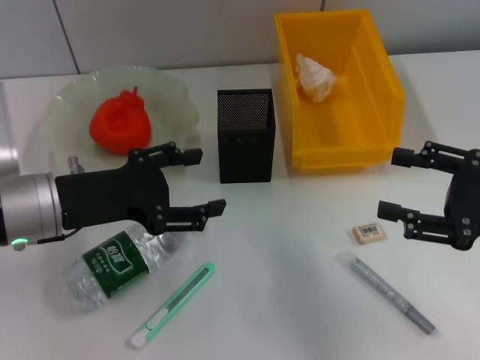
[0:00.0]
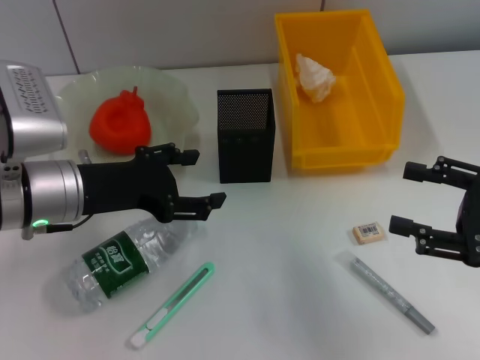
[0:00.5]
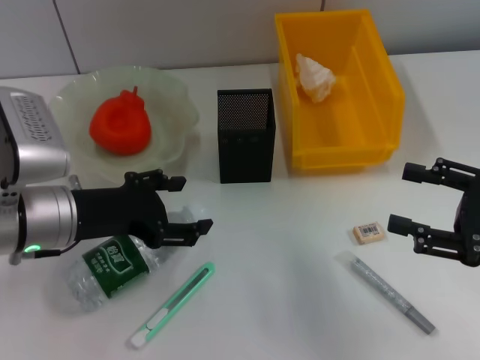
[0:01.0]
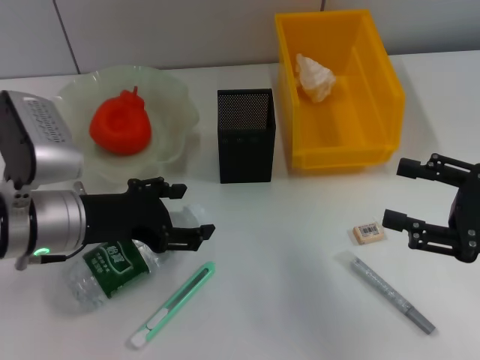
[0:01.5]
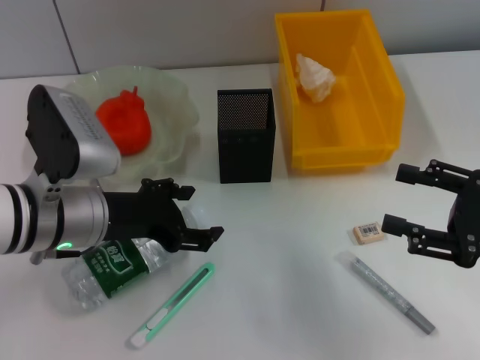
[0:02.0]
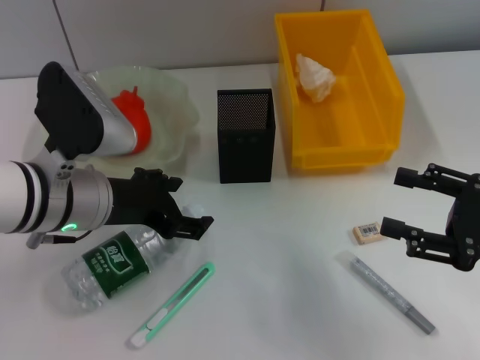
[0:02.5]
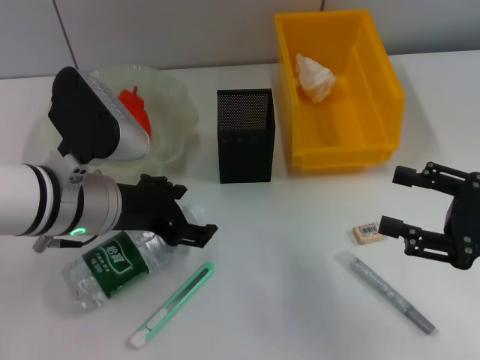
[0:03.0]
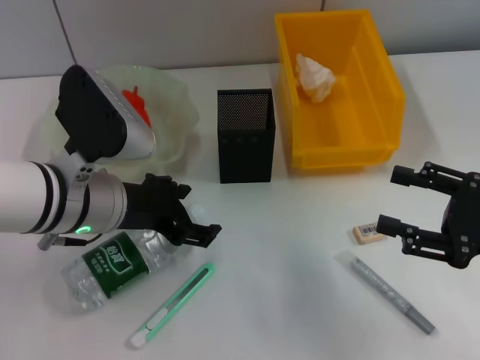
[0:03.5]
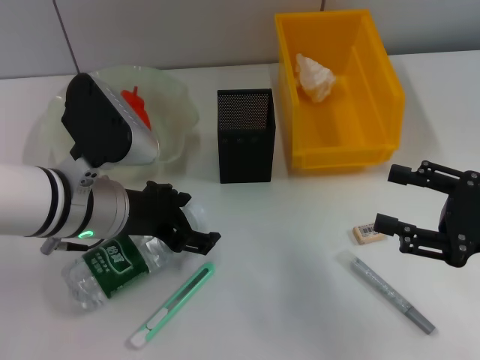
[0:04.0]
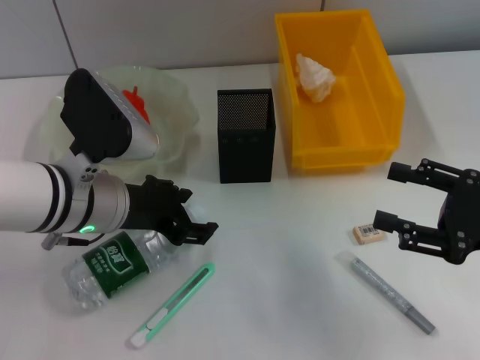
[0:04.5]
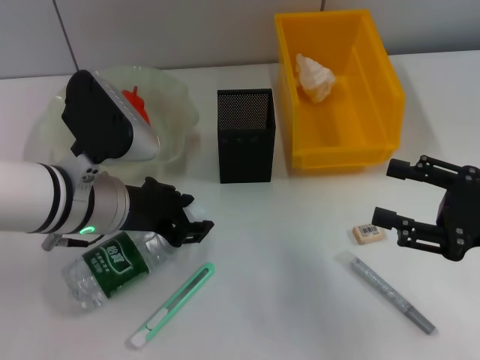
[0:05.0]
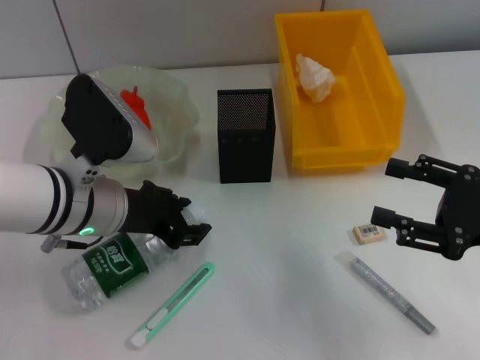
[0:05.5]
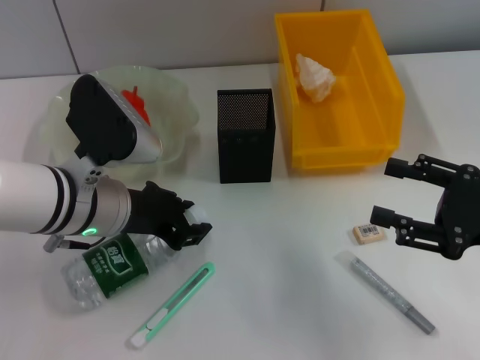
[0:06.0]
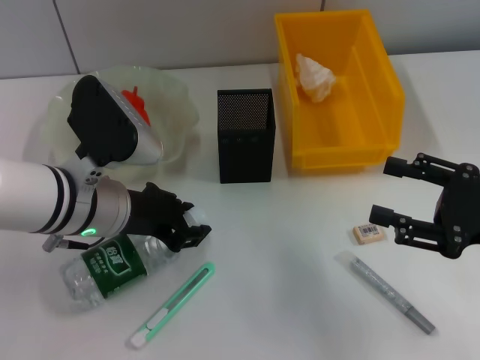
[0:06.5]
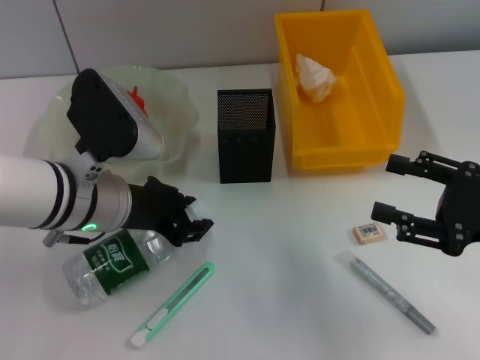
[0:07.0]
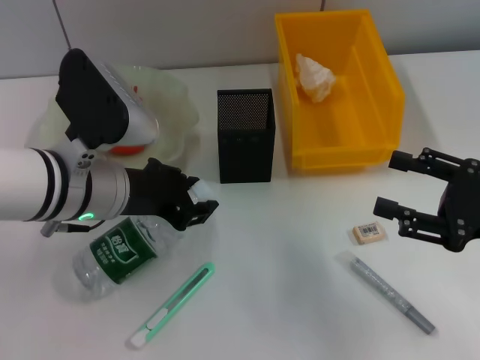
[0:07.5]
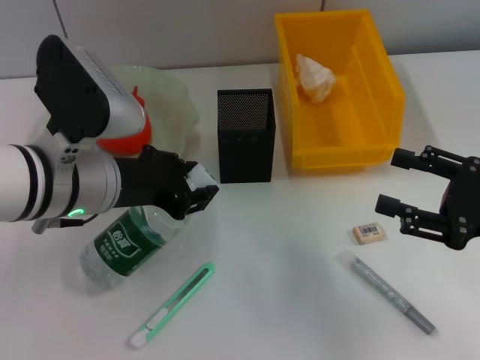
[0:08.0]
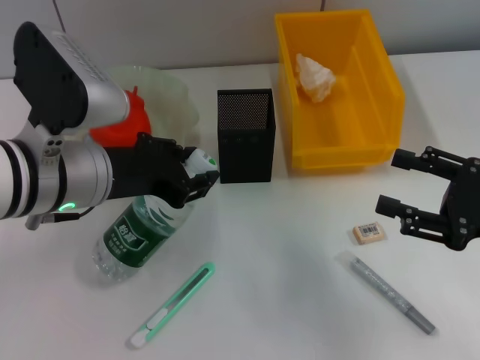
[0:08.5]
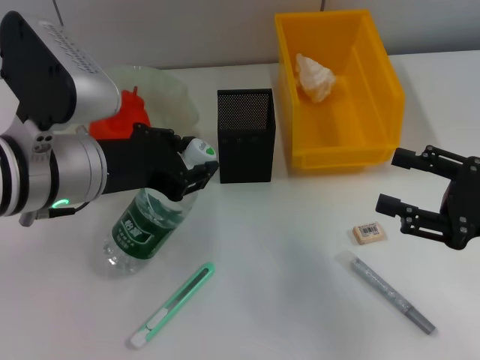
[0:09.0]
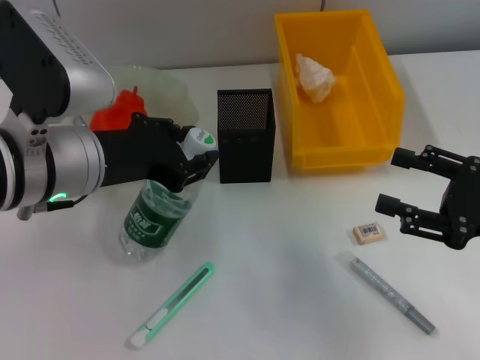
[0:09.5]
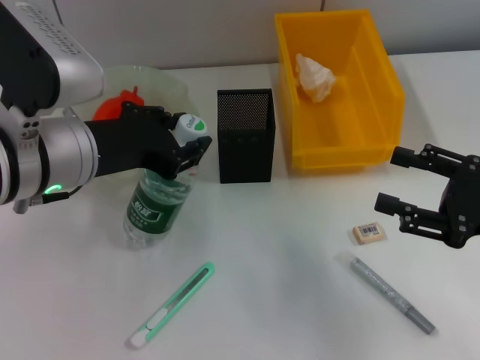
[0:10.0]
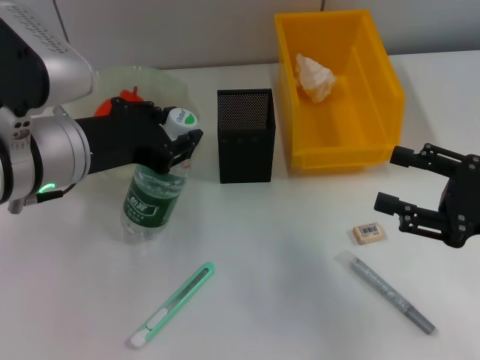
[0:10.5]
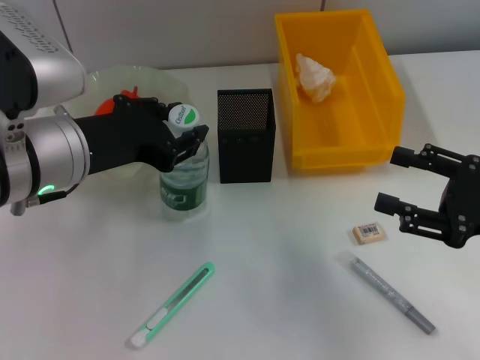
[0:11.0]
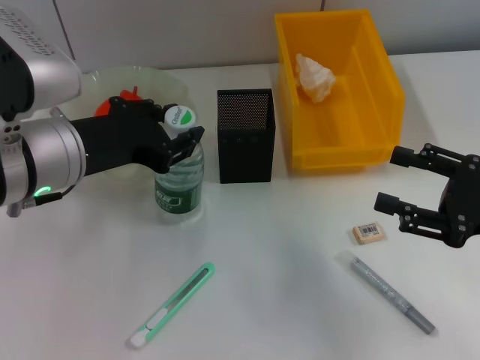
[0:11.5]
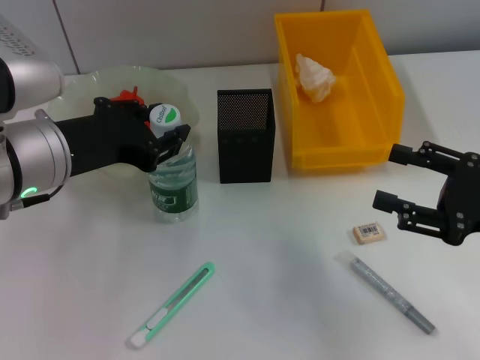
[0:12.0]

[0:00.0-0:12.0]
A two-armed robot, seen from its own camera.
Step, 0:00.0 to 0:06.0: Grab the water bottle with the left hand.
0:02.0 to 0:04.0: There are only small adjustments of the grippers.
0:04.0 to 0:06.0: The left gripper closes.
0:06.0 to 0:08.0: The grippers make only small movements.
0:08.0 to 0:12.0: The grippers make only small movements.

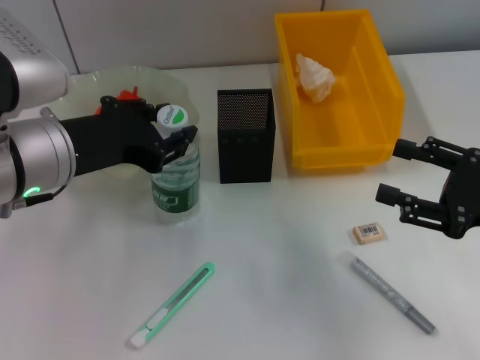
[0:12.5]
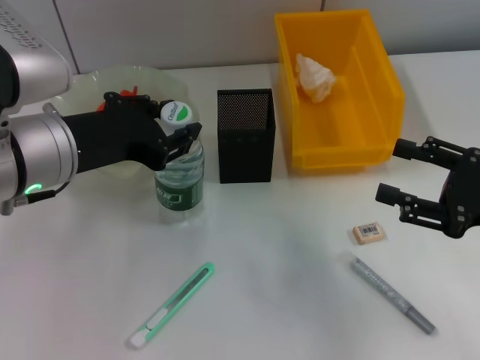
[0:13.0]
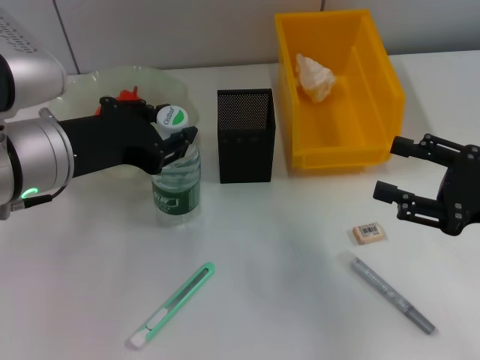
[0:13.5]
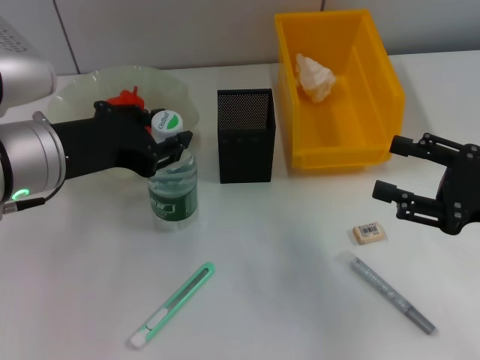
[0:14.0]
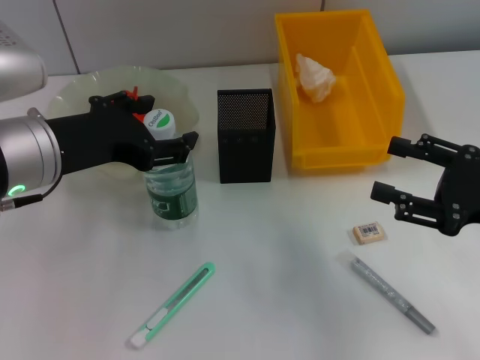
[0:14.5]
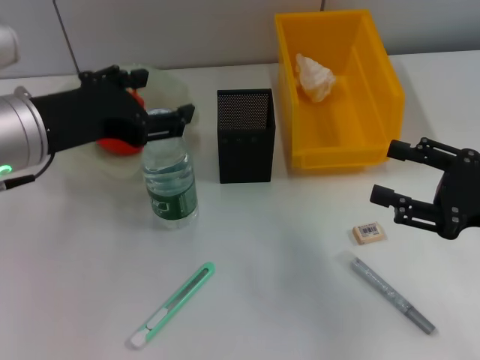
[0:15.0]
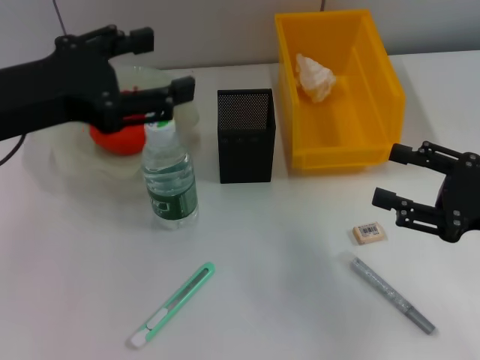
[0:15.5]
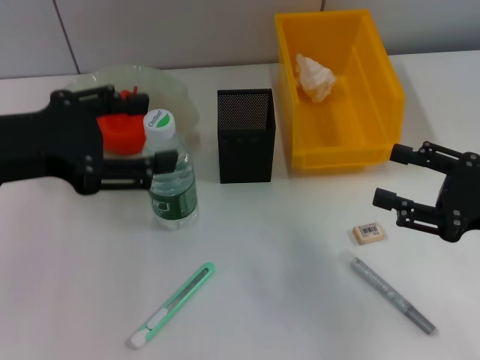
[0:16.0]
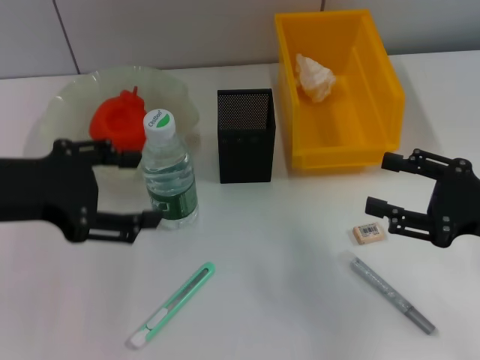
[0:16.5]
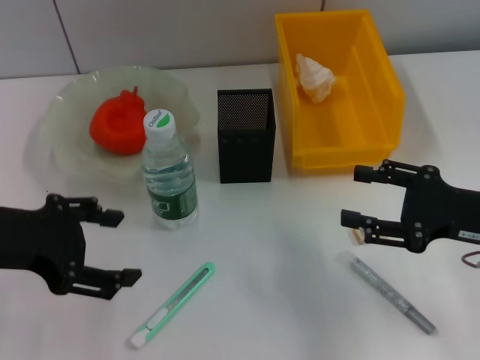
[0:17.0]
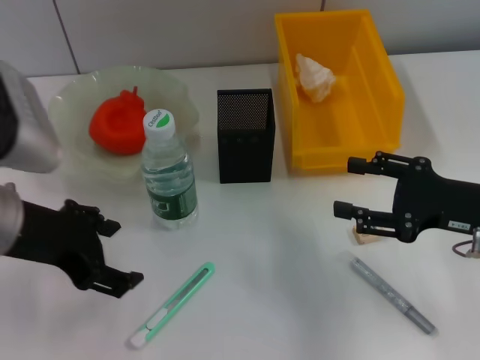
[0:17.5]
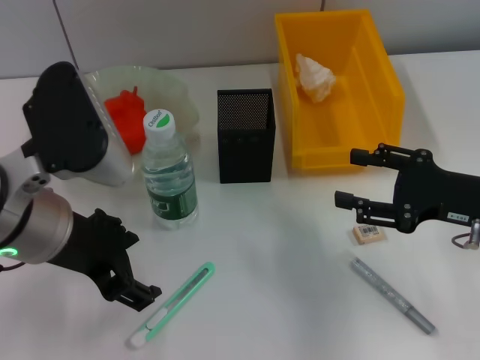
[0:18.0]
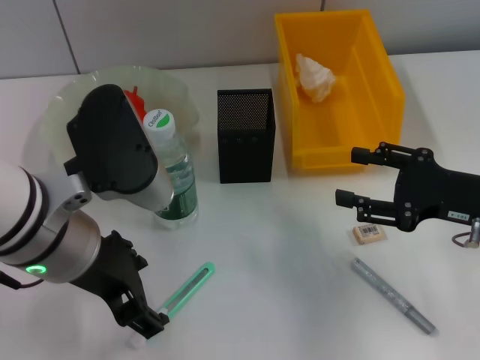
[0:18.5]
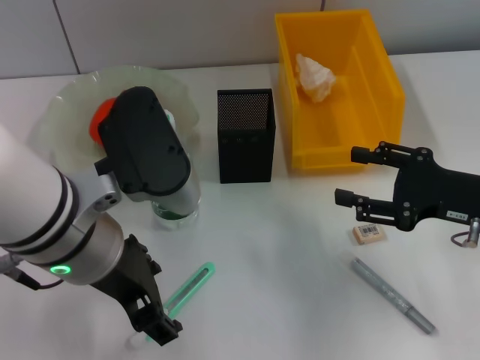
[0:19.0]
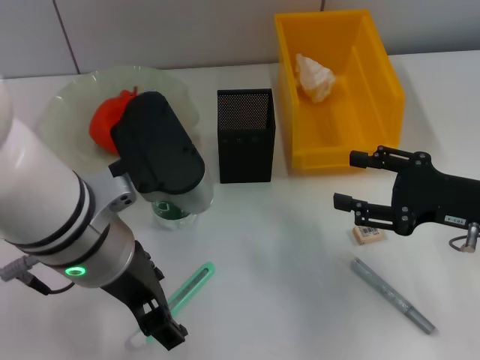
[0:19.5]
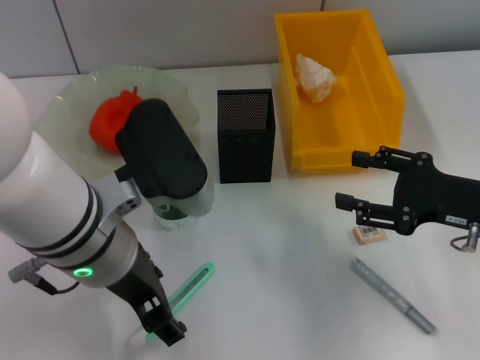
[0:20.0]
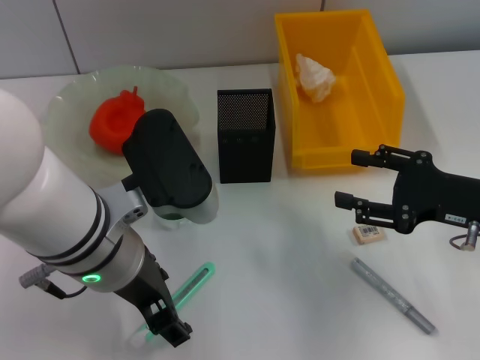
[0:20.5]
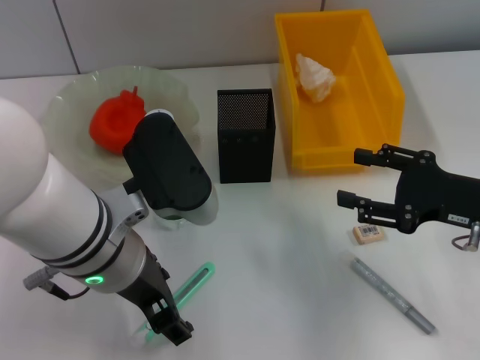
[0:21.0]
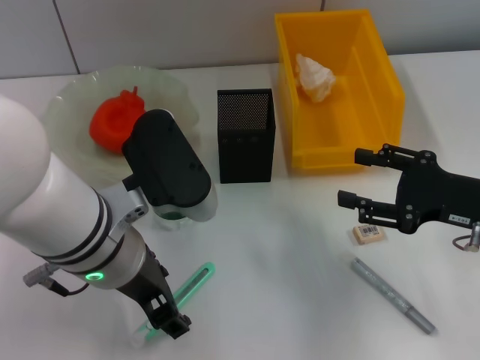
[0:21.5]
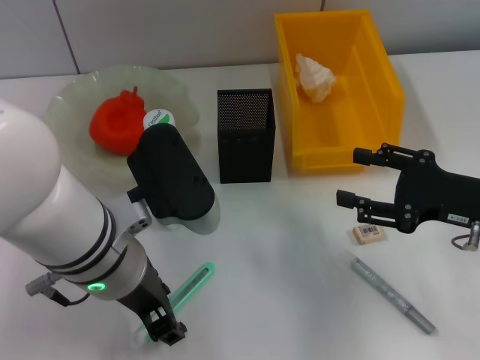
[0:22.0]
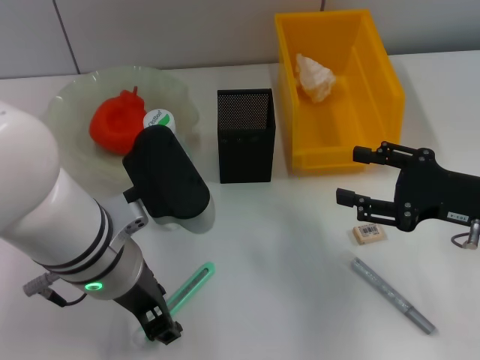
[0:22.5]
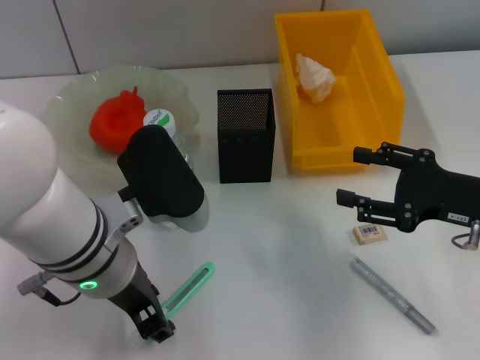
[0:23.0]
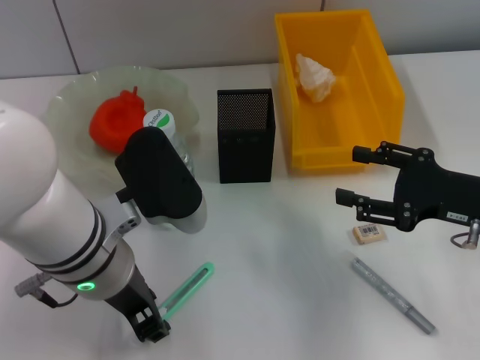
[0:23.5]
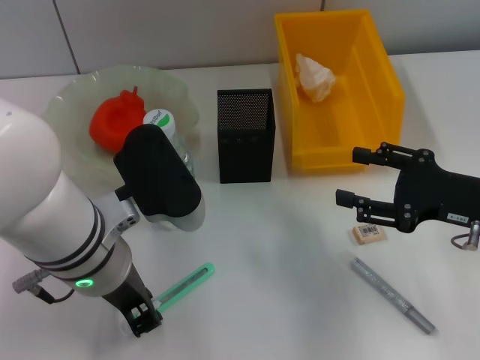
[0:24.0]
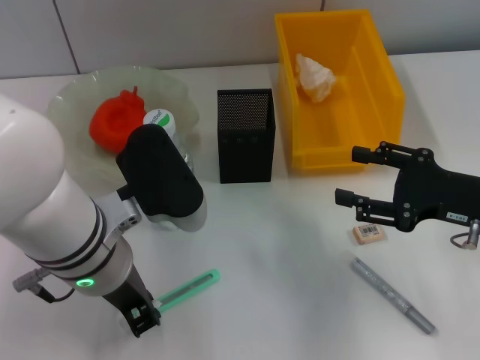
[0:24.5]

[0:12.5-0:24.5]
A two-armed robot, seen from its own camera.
Step, 0:12.5 to 0:14.5: Place the water bottle on the table with the left hand.
0:12.5 to 0:14.5: The two grippers keep their place.
0:14.5 to 0:16.5: The left gripper travels to the left by roughly 5 cm.
0:16.5 to 0:18.5: The left gripper shifts some 10 cm to the right.
0:18.5 to 0:20.5: There are only small adjustments of the grippers.
0:20.5 to 0:22.5: The left gripper closes its fingers.
0:22.5 to 0:24.5: The left gripper closes.

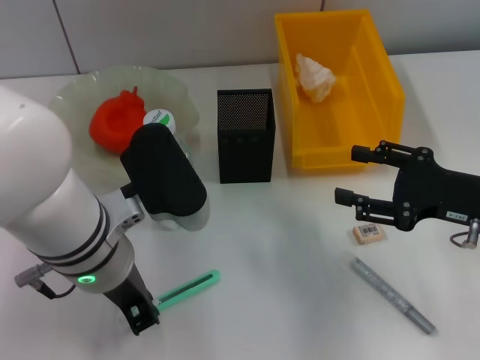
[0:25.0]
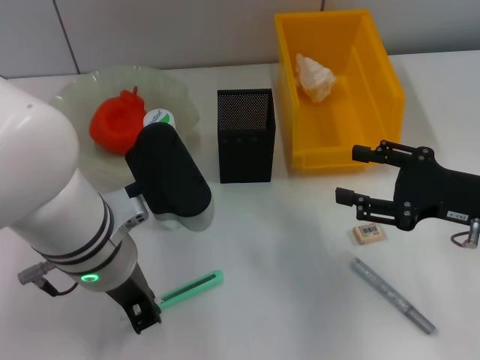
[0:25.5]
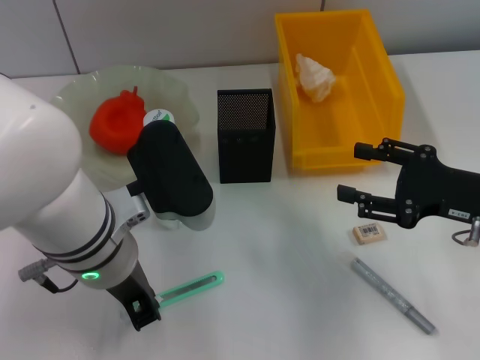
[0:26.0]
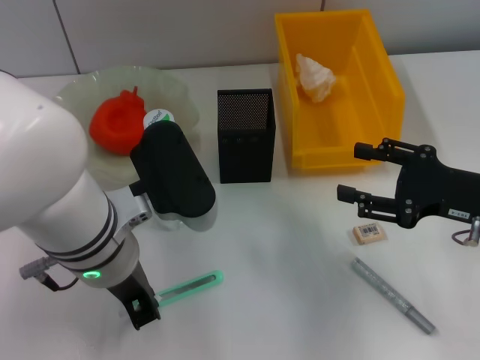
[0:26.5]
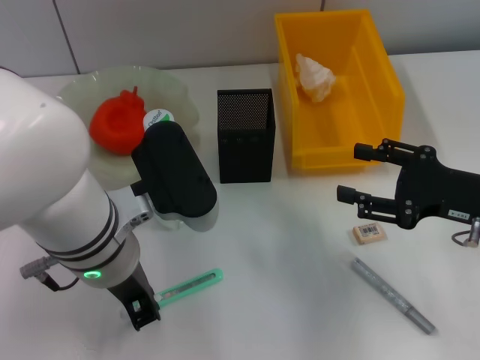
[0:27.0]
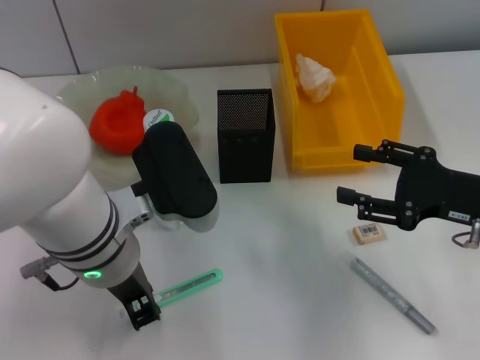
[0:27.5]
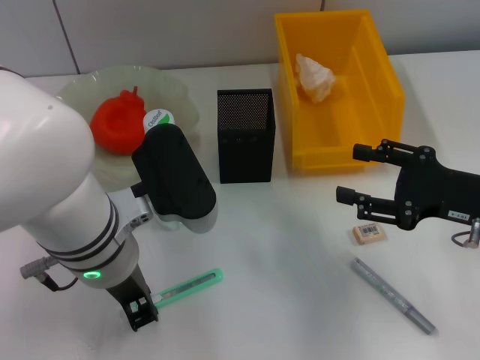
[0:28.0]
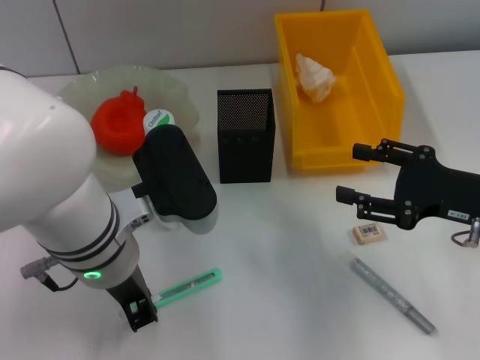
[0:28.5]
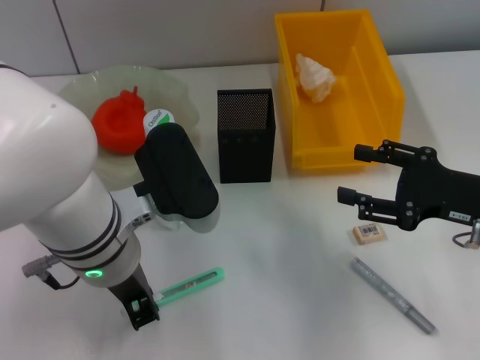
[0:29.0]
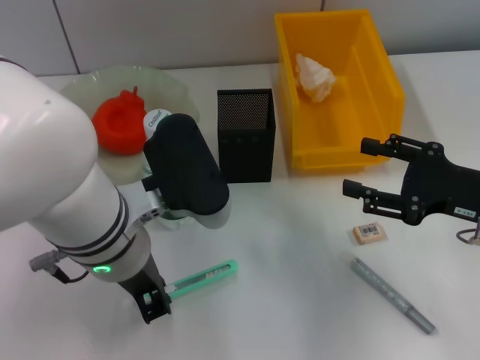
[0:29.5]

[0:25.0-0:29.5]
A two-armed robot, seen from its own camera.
Step, 0:25.0 to 0:28.5: Grab the blue utility knife with the left hand.
0:25.0 to 0:27.0: The two grippers keep their place.
0:27.0 to 0:29.5: The two grippers keep their place.
